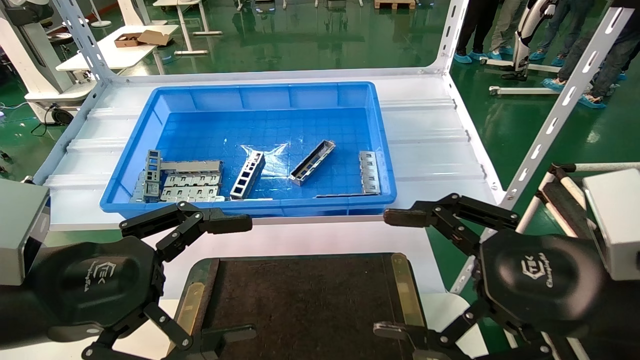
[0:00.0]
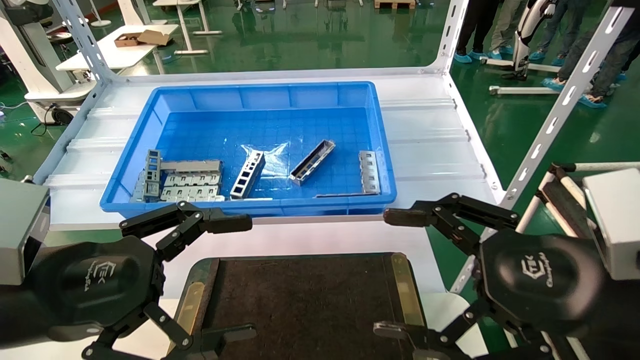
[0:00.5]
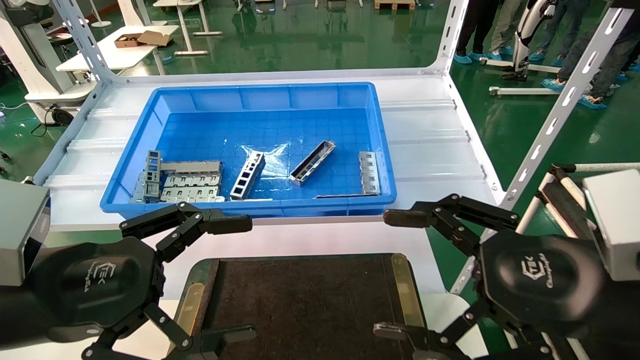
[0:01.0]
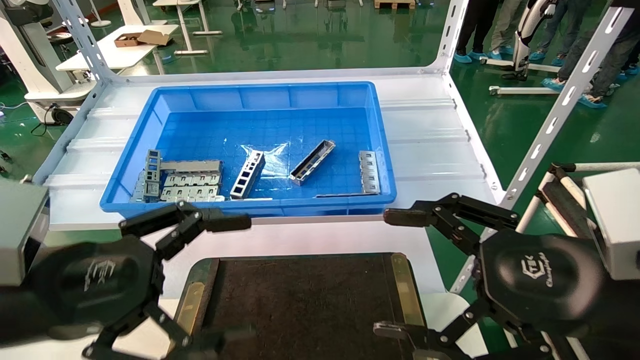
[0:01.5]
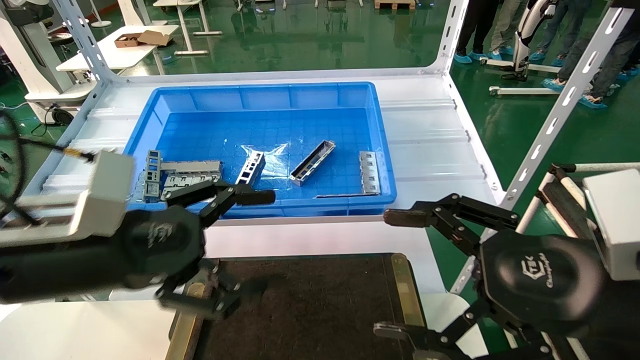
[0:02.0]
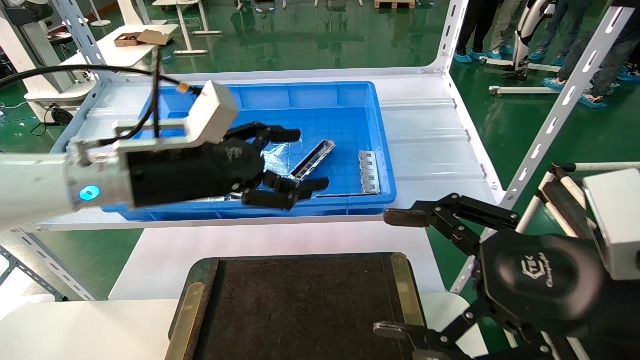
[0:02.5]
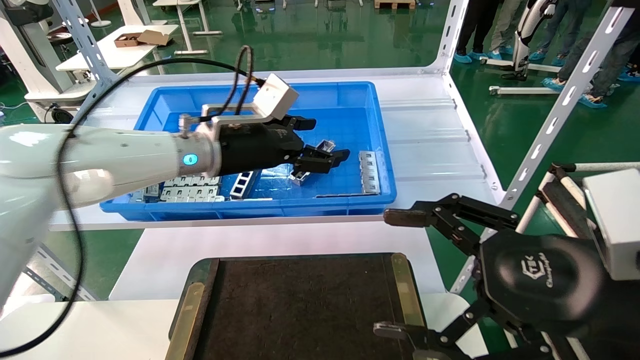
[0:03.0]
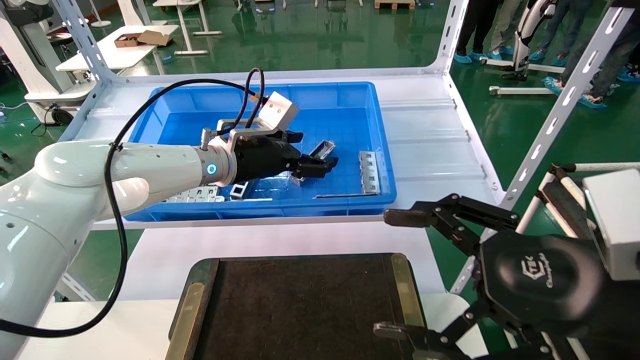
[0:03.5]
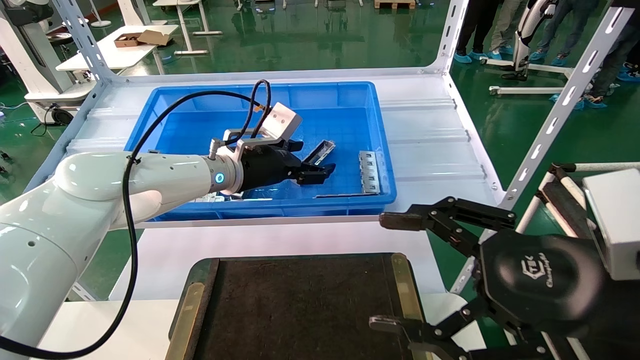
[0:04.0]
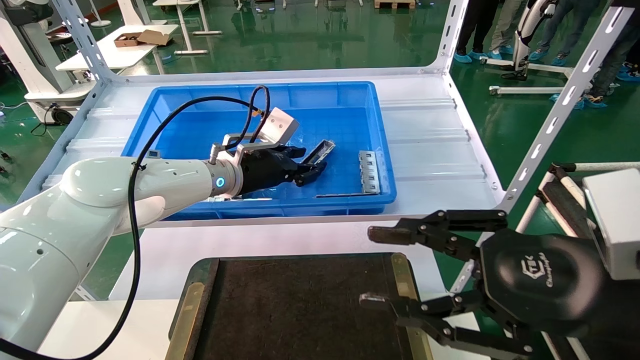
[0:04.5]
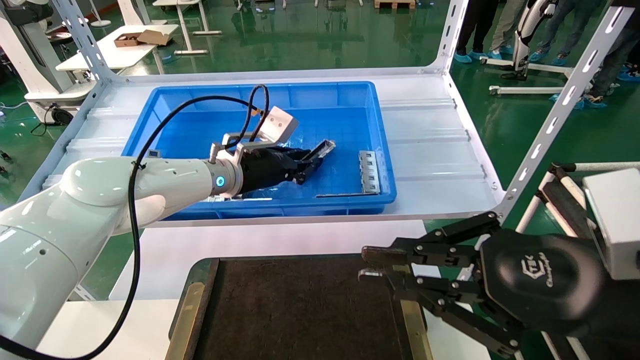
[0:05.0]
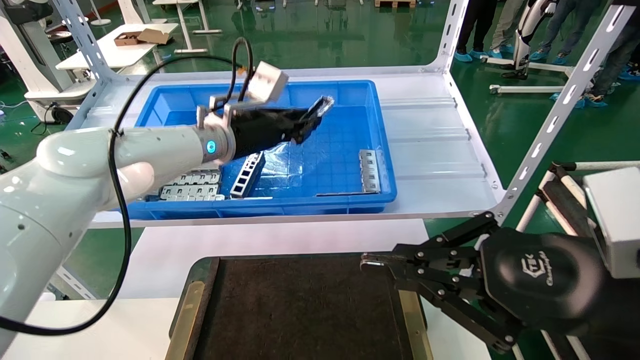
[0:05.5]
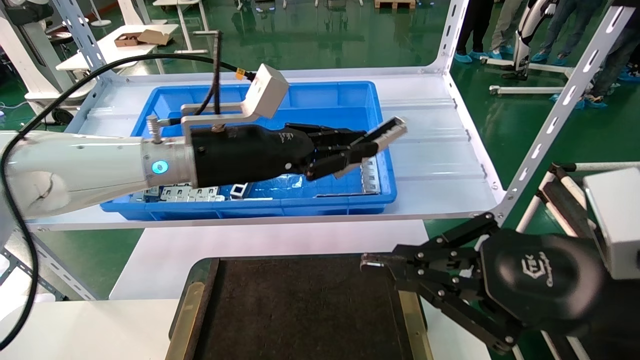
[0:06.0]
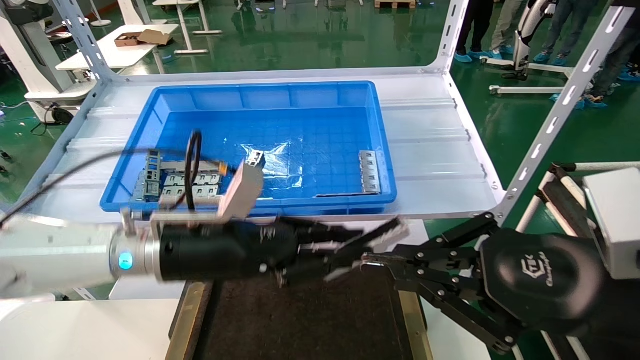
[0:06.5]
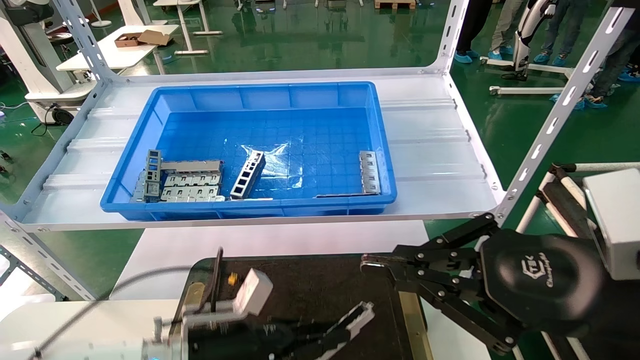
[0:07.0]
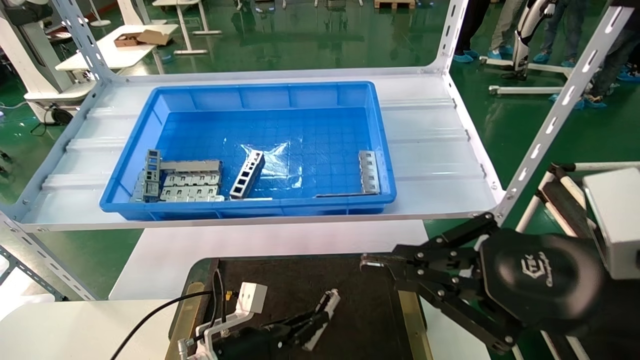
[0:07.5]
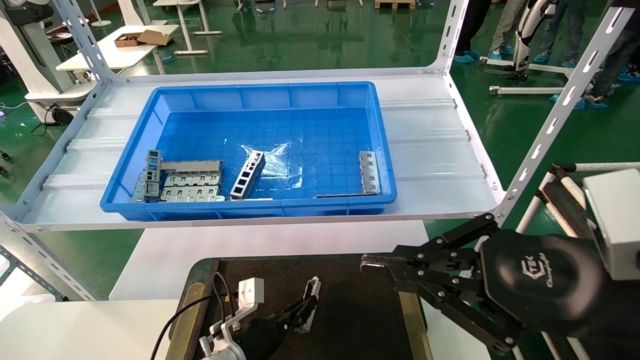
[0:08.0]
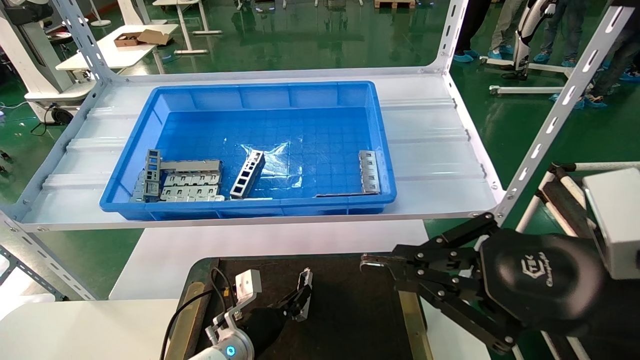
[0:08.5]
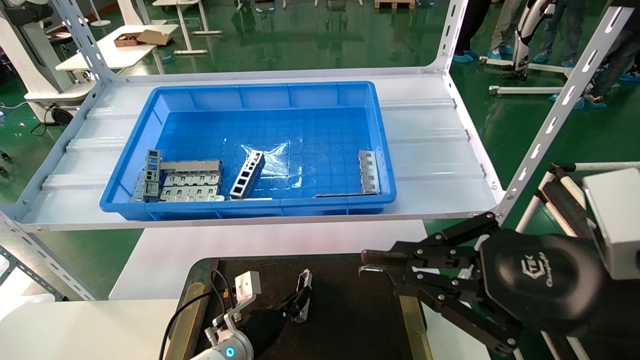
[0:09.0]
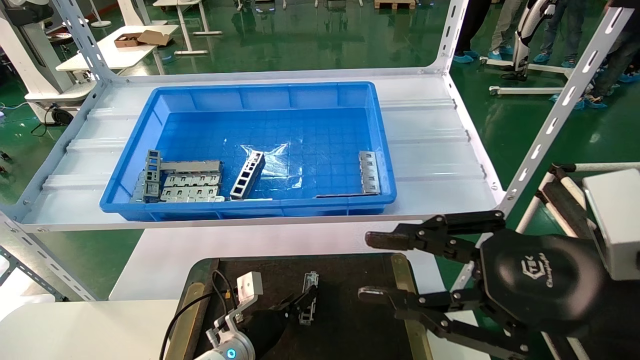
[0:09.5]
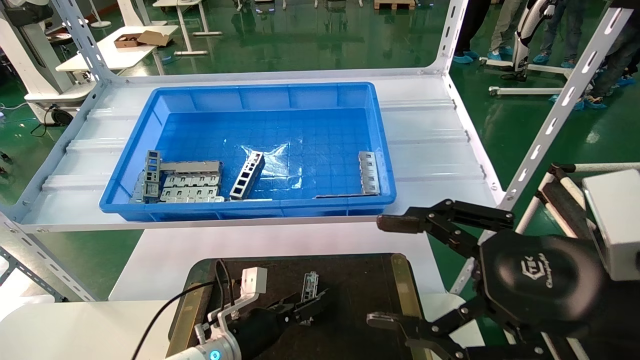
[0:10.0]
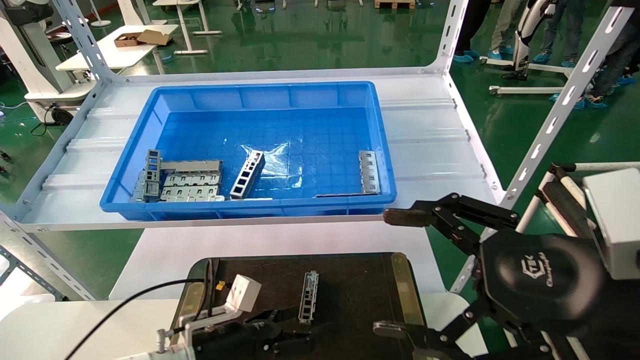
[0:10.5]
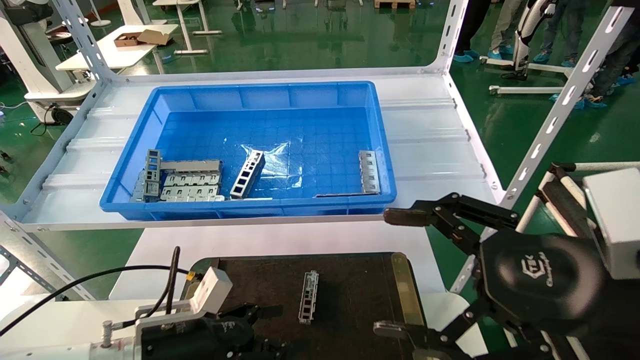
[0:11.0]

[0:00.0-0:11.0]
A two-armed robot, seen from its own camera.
Task of the whole recording: Grasp the part with one hand and place it on the black container.
Step, 0:02.0 to 0:05.0: Pick up the front USB bracket from the feeding area.
Step, 0:05.5 to 0:09.5: Place the front USB bracket into the box.
0:00.0 to 0:02.0: The left gripper heads forward, covering some 5 cm.
0:02.0 to 0:03.5: The left gripper shifts approximately 25 cm forward and to the right.
0:03.5 to 0:05.5: The right gripper closes up. The left gripper closes its fingers.
0:05.5 to 0:07.5: The left gripper goes about 35 cm downward.
0:07.5 to 0:09.0: The left gripper goes roughly 5 cm forward.
0:09.0 to 0:11.0: The right gripper opens up; the left gripper shifts some 20 cm upward, backward and to the left, and opens its fingers.

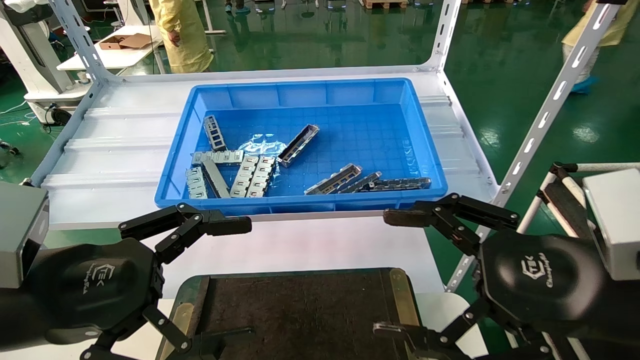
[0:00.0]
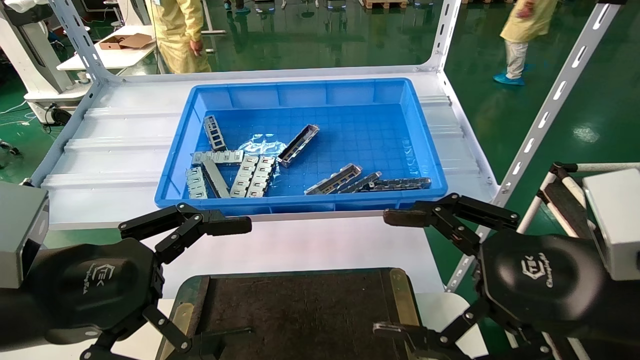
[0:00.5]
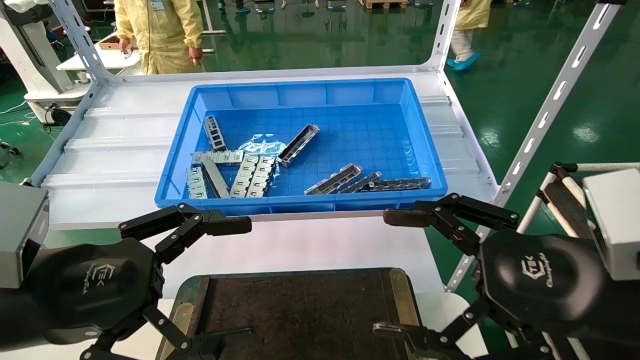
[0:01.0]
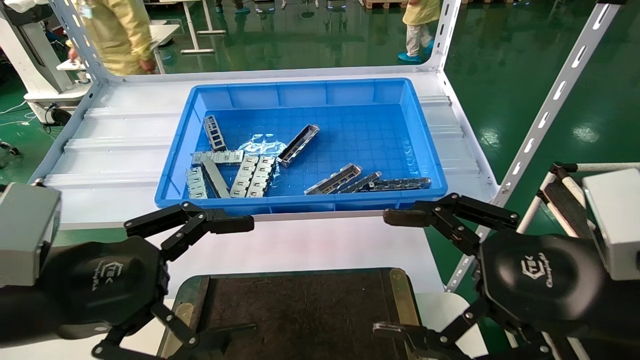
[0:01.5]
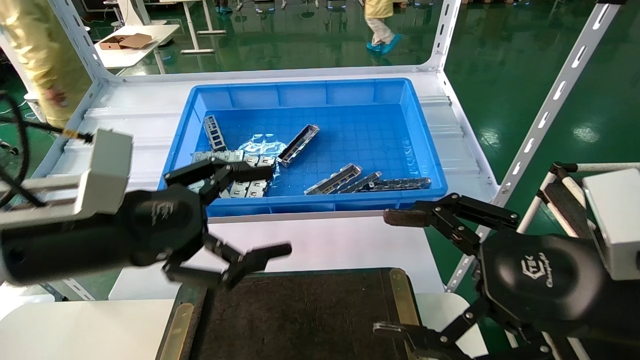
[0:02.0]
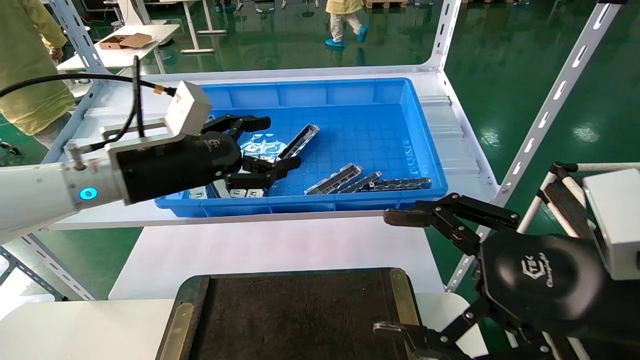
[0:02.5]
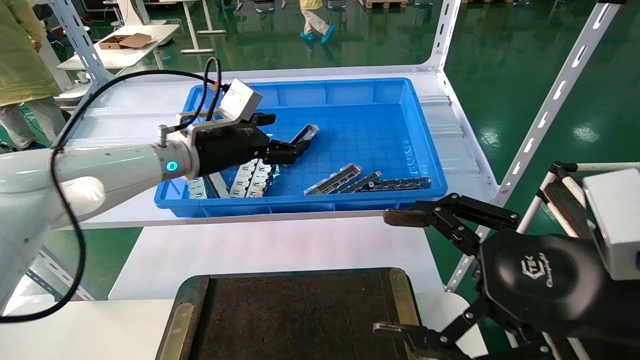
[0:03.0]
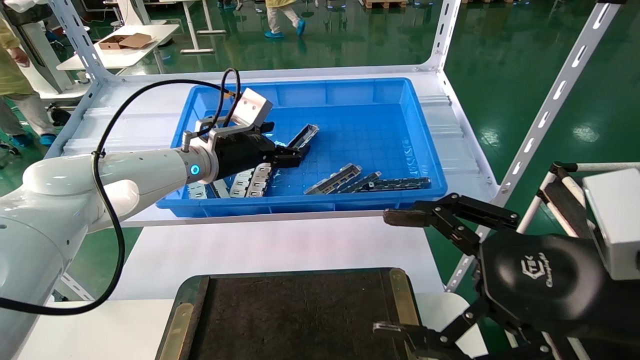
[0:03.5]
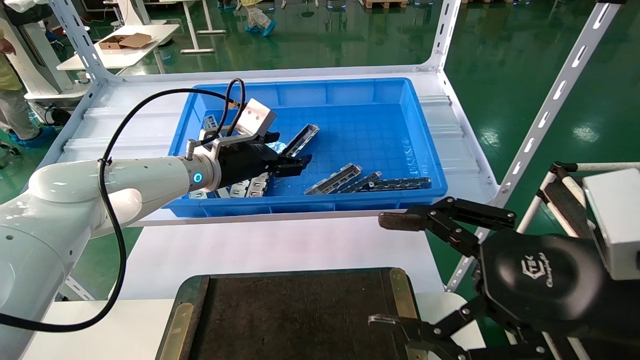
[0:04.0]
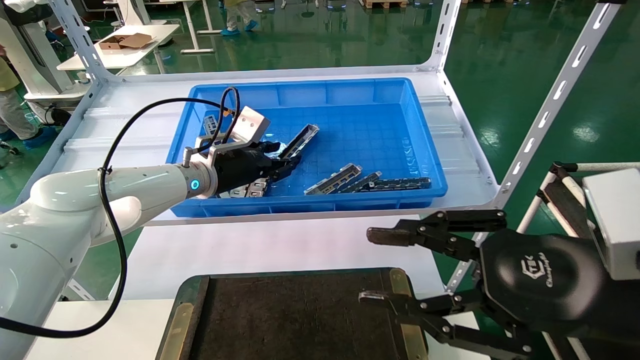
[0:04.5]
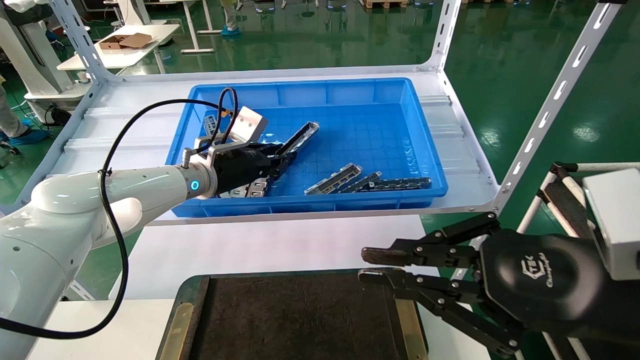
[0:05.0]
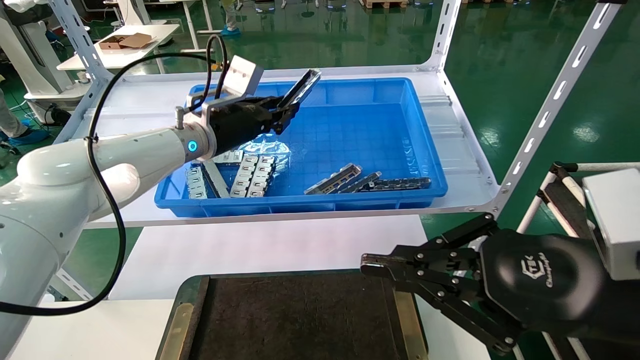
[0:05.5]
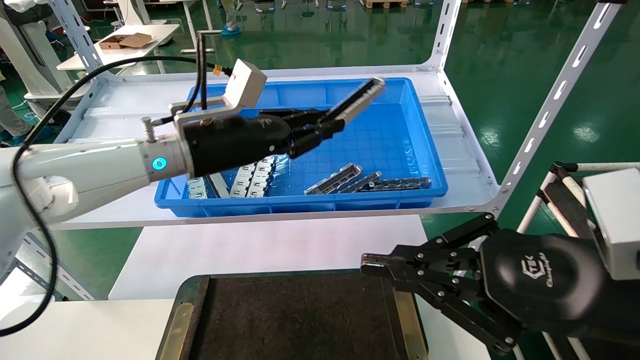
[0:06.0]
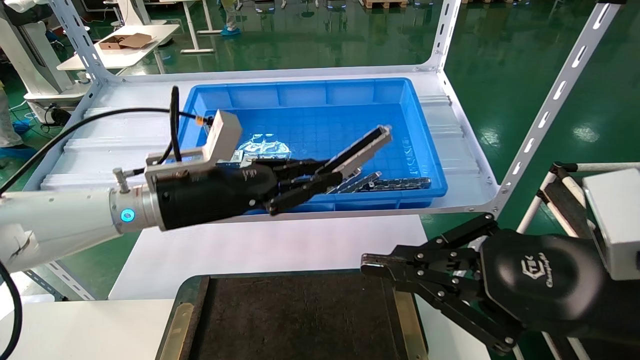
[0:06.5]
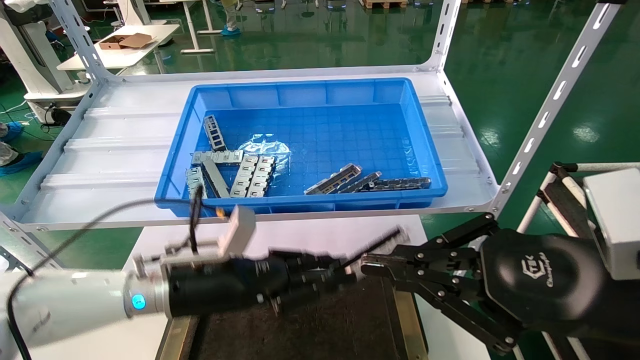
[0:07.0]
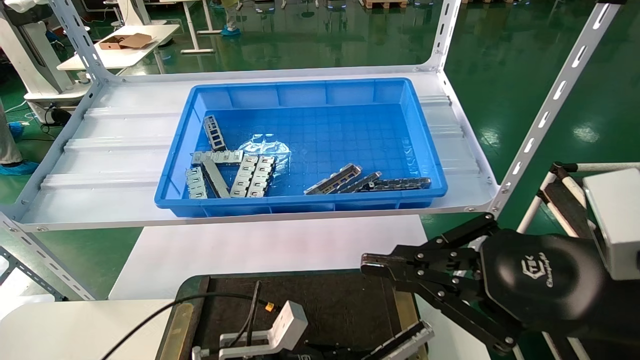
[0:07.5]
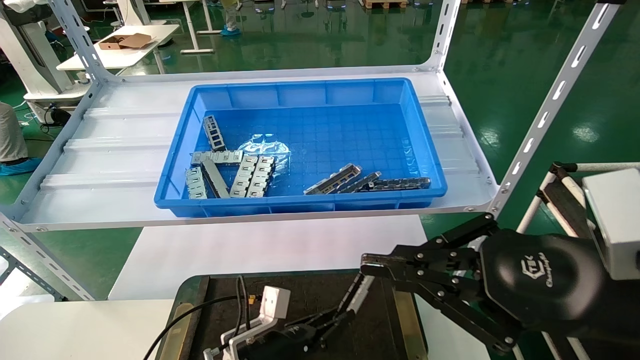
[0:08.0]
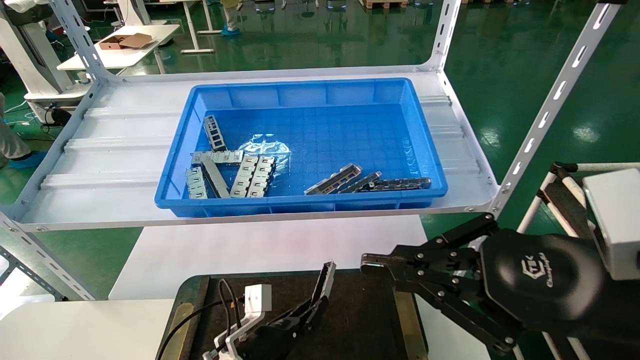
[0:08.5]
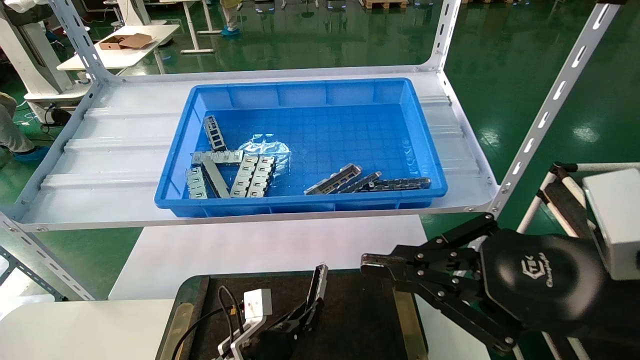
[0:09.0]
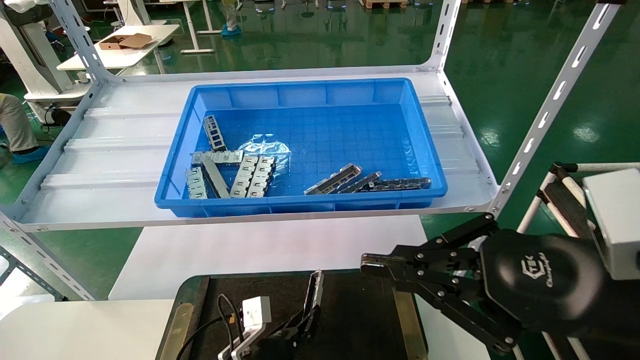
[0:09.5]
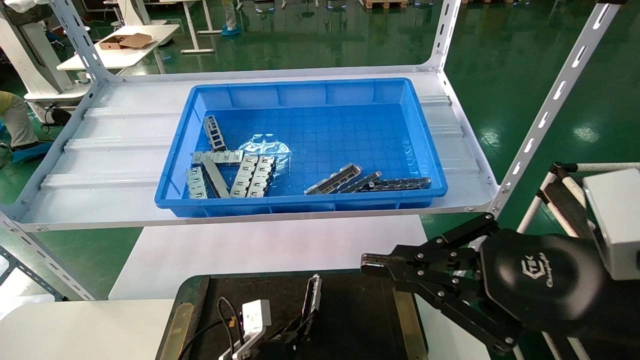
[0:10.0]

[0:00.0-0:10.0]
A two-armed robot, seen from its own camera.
Task of the whole recording: Grasp the part with one hand and place it on the black container.
Step, 0:02.0 to 0:04.5: Pick up the front USB bracket from the feeding area.
0:00.0 to 0:02.0: The left gripper goes roughly 5 cm forward.
0:02.0 to 0:04.0: The left gripper travels forward by roughly 25 cm.
0:04.0 to 0:06.0: The left gripper shifts roughly 5 cm backward, and closes. Meanwhile the right gripper closes its fingers.
0:06.0 to 0:08.0: The left gripper shifts some 35 cm downward.
